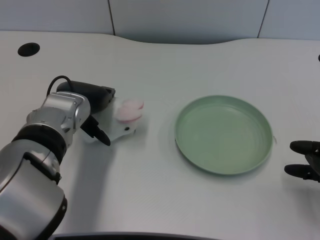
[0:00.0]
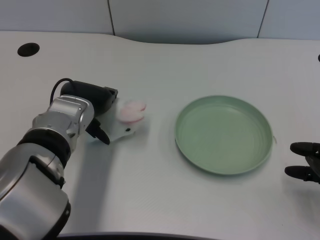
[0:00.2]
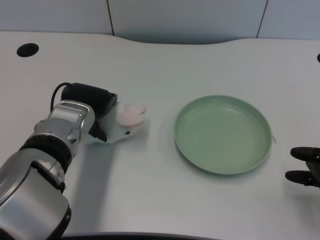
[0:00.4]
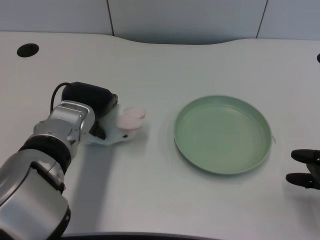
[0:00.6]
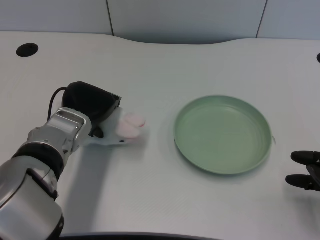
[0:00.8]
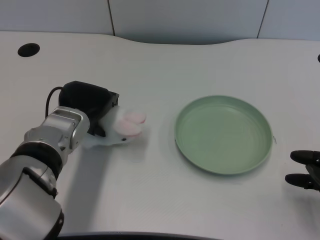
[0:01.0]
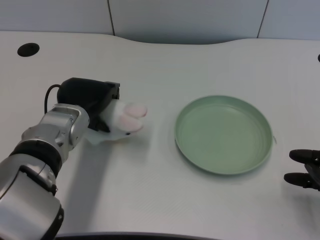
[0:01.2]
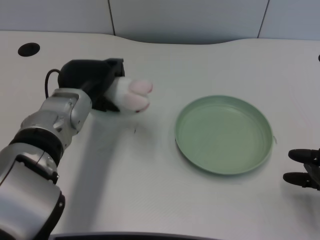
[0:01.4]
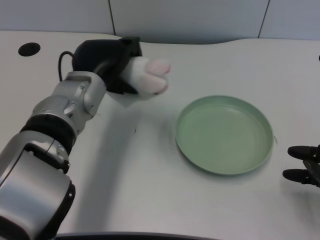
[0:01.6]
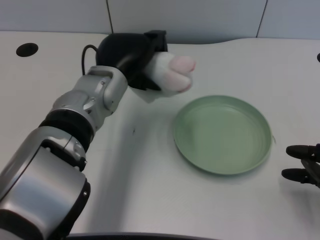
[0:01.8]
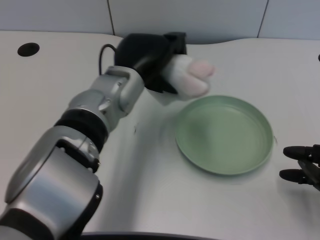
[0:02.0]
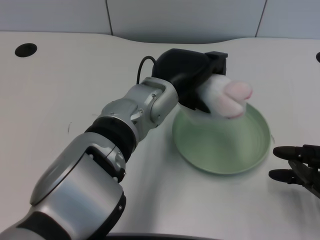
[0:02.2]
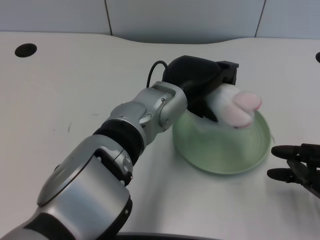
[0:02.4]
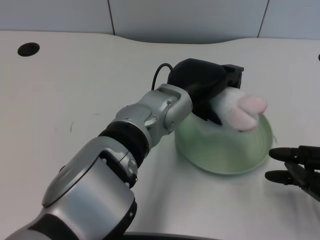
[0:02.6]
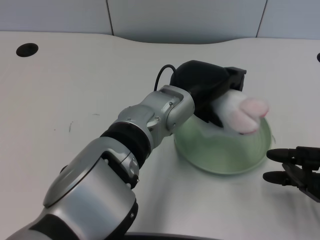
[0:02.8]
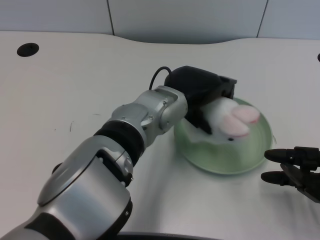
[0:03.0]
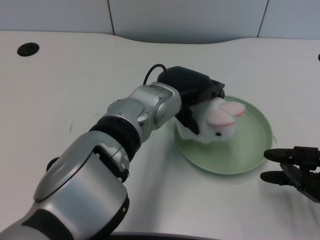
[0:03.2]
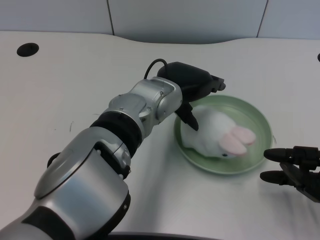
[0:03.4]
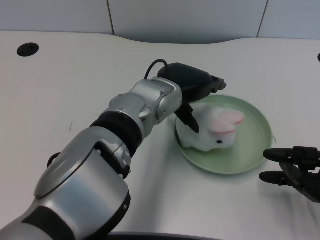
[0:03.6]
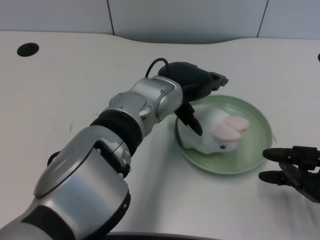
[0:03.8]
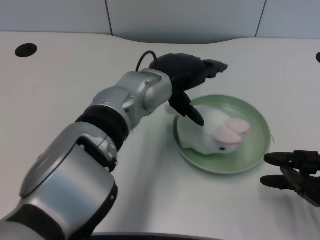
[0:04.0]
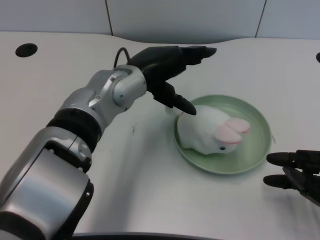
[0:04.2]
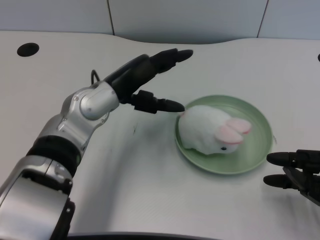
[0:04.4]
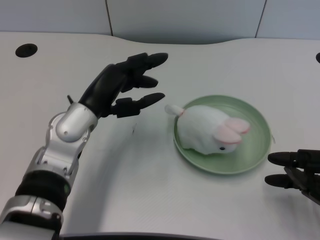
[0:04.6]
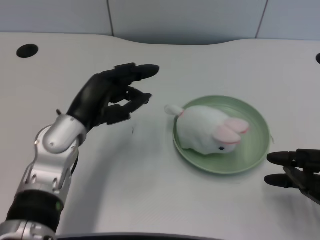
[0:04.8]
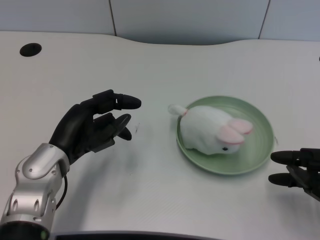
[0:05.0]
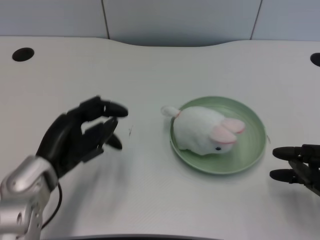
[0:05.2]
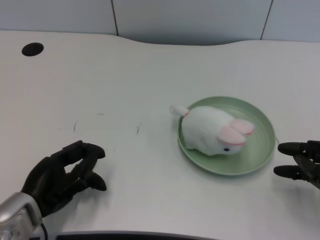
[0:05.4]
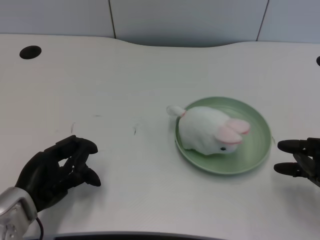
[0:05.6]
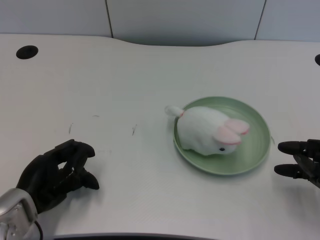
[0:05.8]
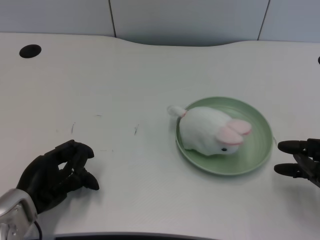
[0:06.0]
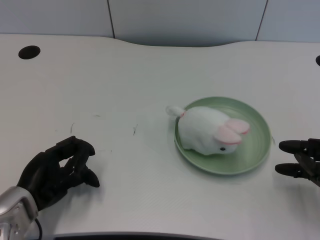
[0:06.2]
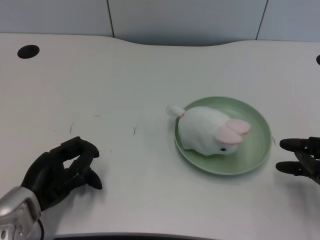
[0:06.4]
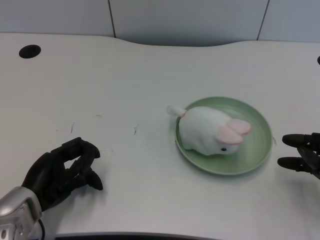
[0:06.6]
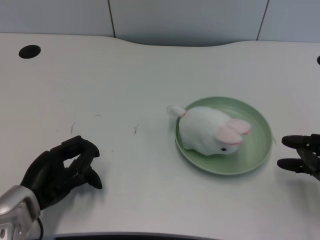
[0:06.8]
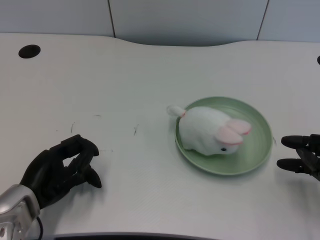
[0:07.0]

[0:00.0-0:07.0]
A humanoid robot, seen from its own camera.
Task of the whole recording: pick up the rabbit doll from the table and place it on the plate.
Step, 0:01.4 to 0:03.4: Place the rabbit doll into the plate with the left gripper.
0:01.4 to 0:02.8: The left hand is displaced to the right by approximately 15 cm.
0:02.8 to 0:04.2: The left hand heads to the left, covering some 5 cm.
0:04.2 to 0:05.6: The left hand heads to the left, downward and backward, covering approximately 25 cm.
0:05.6 to 0:07.0: The hands move only a little.

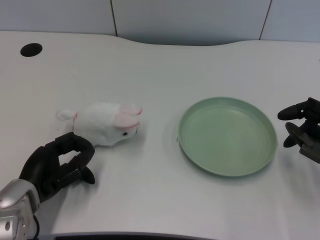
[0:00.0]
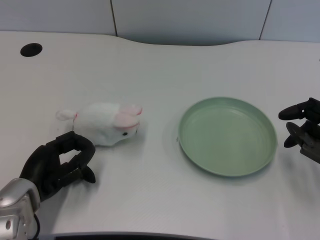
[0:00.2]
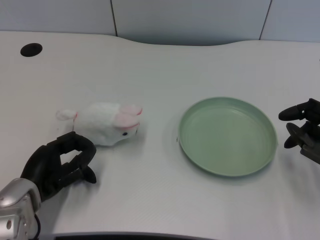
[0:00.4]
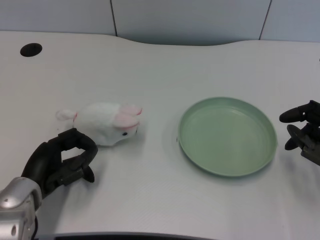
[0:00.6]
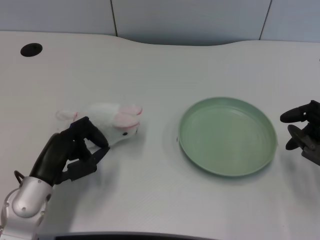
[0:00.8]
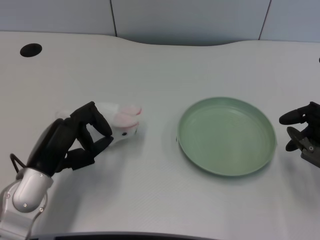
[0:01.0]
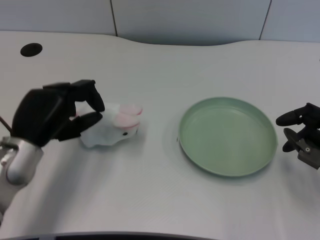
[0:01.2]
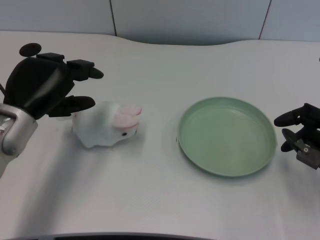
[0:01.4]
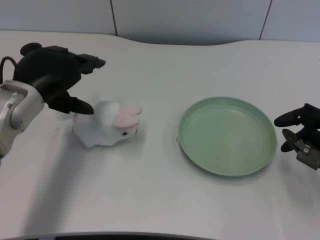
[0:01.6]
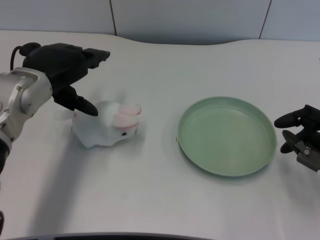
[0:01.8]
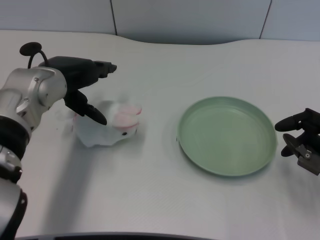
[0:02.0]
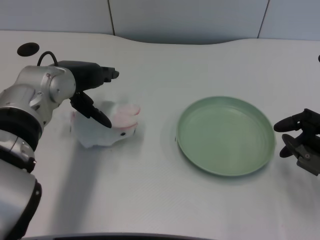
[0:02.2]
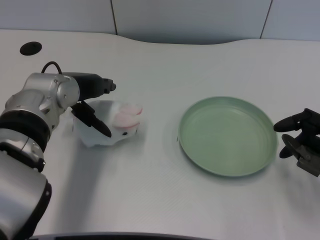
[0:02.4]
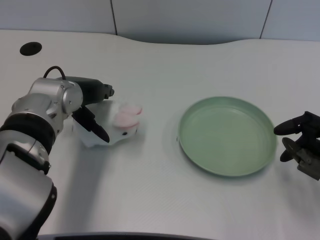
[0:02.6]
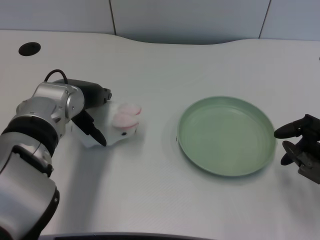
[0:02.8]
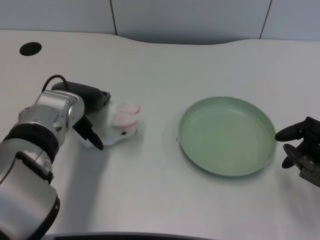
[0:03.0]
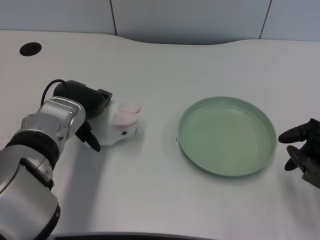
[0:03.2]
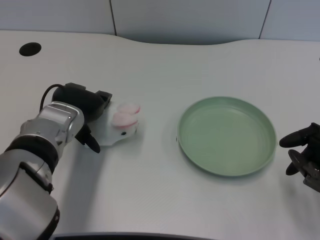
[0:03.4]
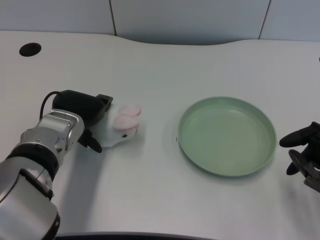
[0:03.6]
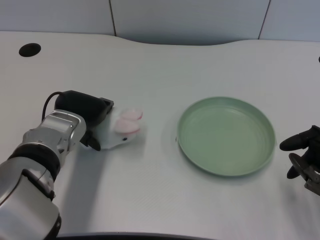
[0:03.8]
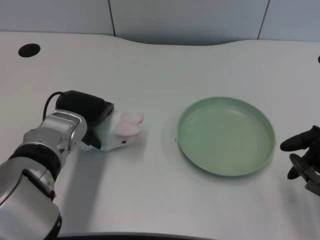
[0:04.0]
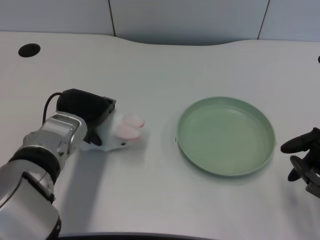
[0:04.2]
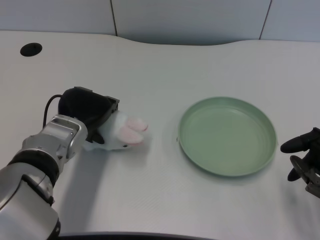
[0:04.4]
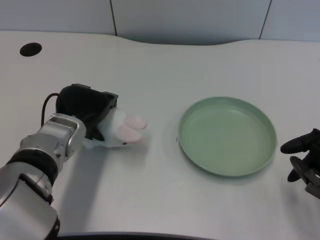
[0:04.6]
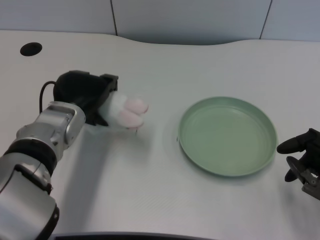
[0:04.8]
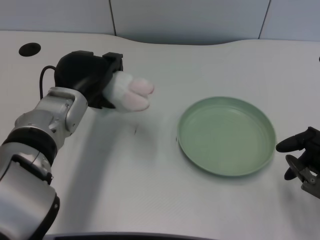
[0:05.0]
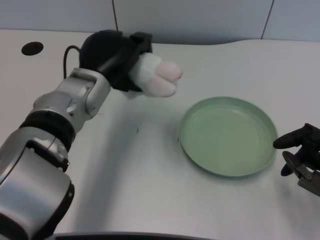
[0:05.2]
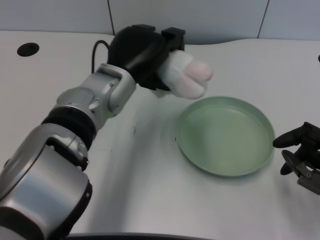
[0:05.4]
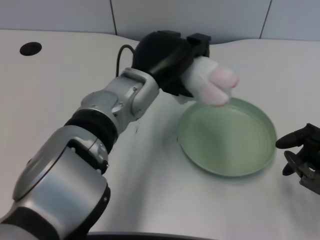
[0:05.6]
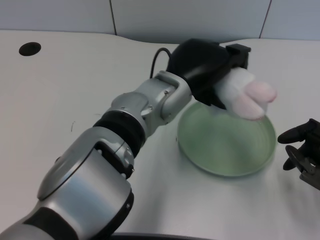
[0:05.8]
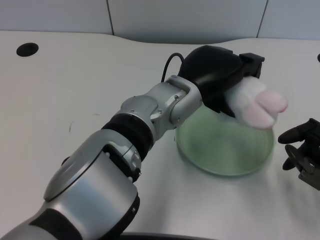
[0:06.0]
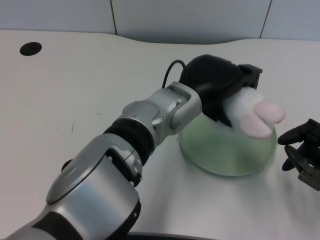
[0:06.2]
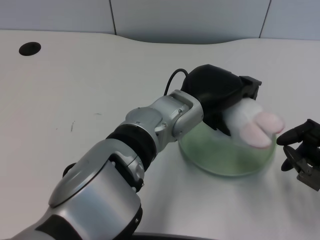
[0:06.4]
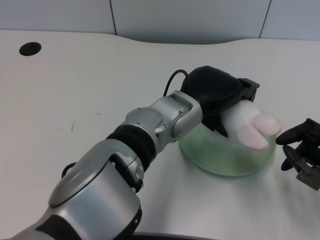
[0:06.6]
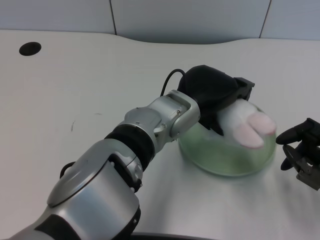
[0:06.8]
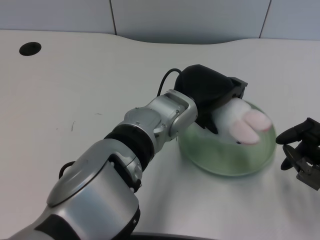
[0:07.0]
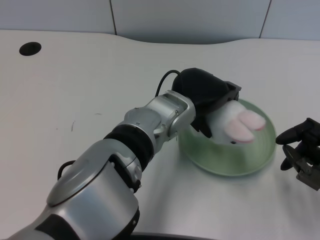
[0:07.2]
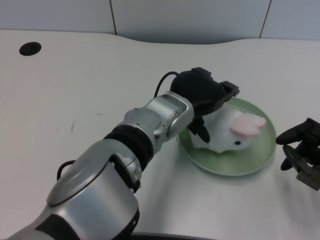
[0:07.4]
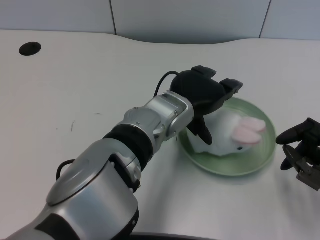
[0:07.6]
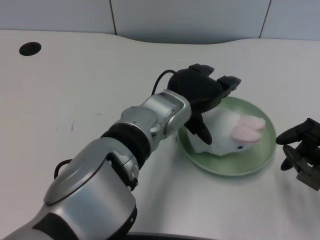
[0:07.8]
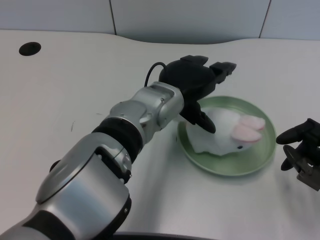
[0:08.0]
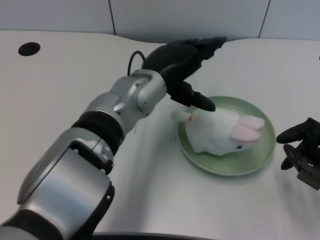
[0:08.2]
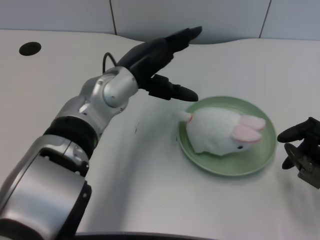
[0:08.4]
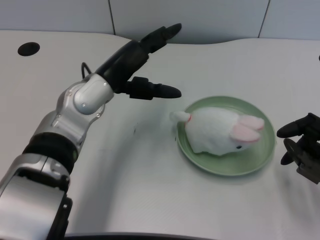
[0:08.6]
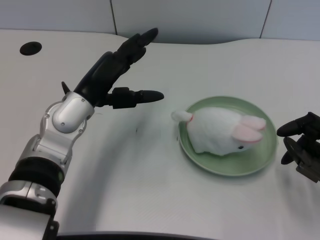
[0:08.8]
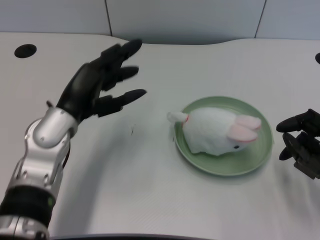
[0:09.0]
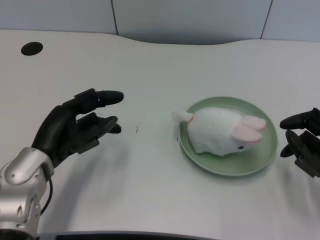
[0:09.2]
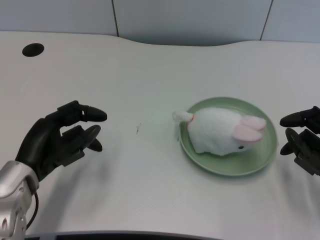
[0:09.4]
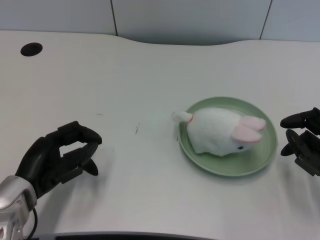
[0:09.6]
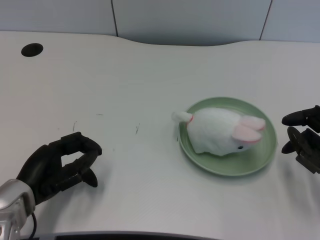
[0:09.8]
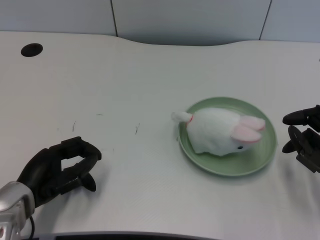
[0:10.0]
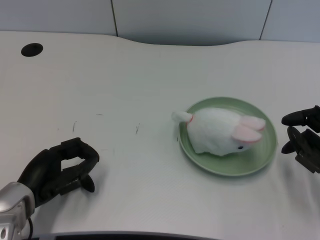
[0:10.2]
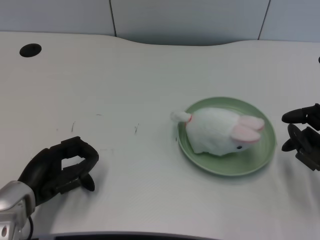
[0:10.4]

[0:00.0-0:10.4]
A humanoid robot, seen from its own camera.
Task of the whole recording: pick up the rabbit doll from the table and place it on the plate.
Step, 0:00.8 to 0:04.6: Grasp the rabbit doll with the left gripper.
Step, 0:04.8 to 0:07.6: Place the rabbit doll into the plate with the left gripper.
0:01.4 to 0:03.0: The left hand travels to the right by approximately 5 cm.
0:04.4 to 0:06.0: The left hand shifts some 20 cm to the right and upward.
0:07.4 to 0:09.0: The left hand shifts about 15 cm to the left.
0:09.0 to 0:10.4: The left hand moves downward, to the left and backward, roughly 10 cm.

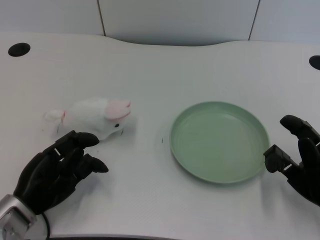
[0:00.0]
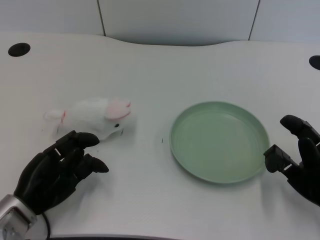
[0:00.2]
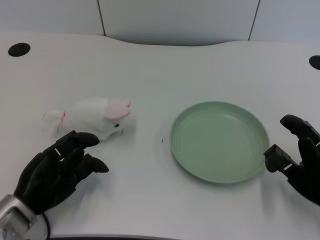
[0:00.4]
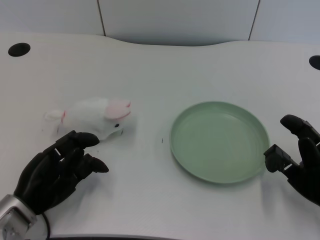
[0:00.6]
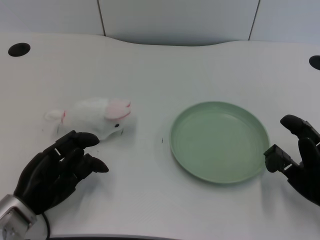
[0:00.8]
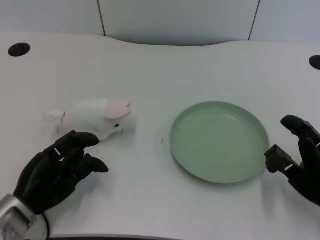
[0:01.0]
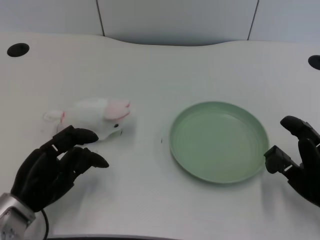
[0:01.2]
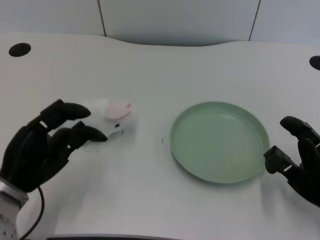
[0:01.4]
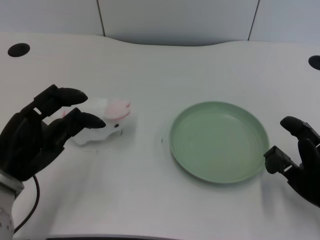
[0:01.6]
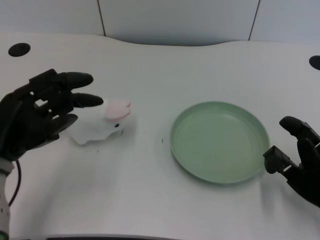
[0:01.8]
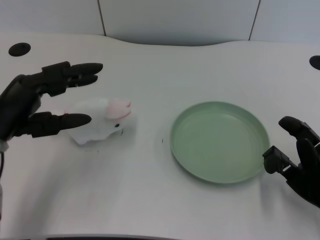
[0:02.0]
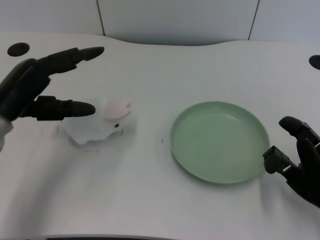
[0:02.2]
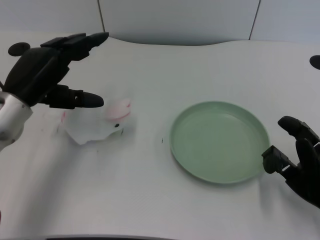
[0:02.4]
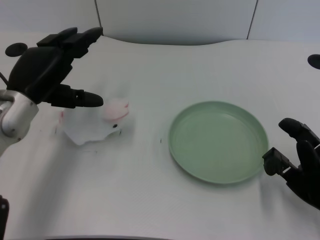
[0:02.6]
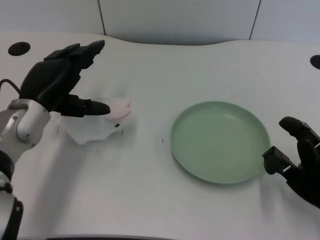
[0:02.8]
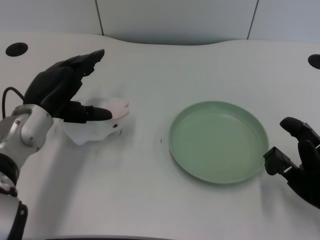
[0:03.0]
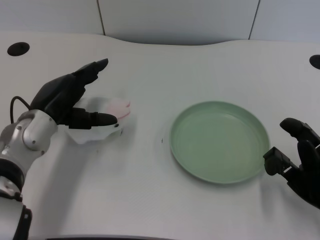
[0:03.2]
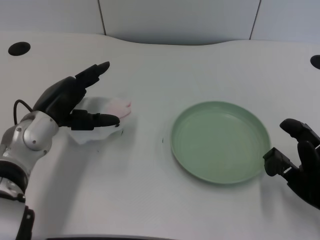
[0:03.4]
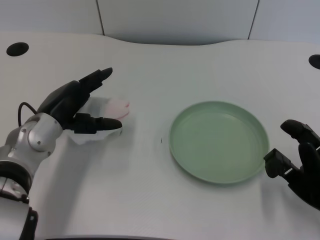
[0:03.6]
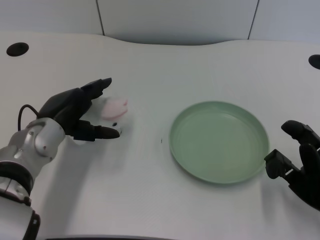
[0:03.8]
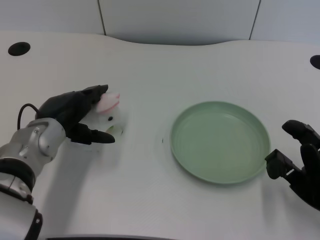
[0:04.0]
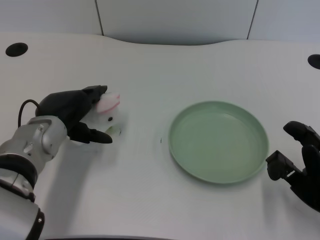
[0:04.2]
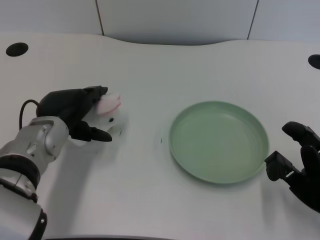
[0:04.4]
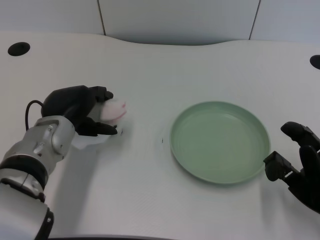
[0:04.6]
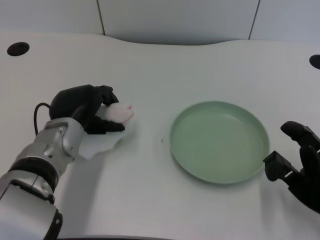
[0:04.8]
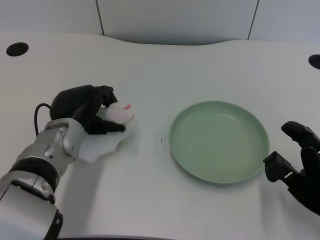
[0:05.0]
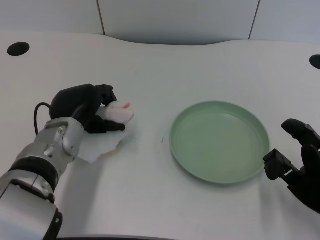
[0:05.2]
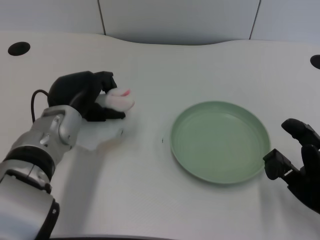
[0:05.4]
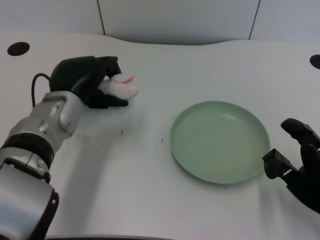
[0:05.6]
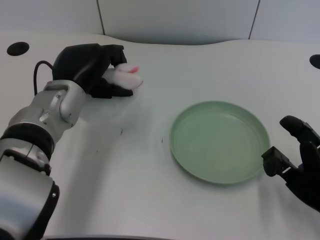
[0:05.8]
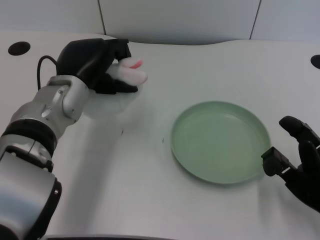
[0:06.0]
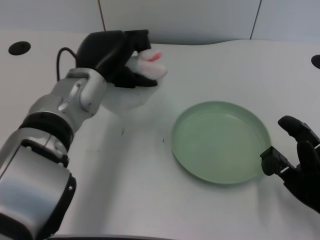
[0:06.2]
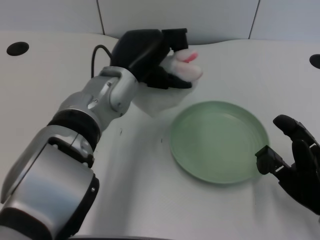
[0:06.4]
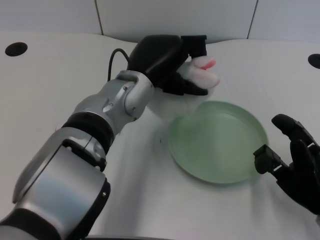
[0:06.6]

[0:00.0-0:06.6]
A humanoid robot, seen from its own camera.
Task of the whole recording: pick up the rabbit doll from the table and place it on the plate.
Step, 0:01.4 to 0:05.4: Grasp the rabbit doll with the left gripper.
0:01.6 to 0:03.2: The left hand moves forward and to the right, roughly 10 cm.
0:05.0 to 0:06.6: The left hand shifts roughly 10 cm to the right and upward.
